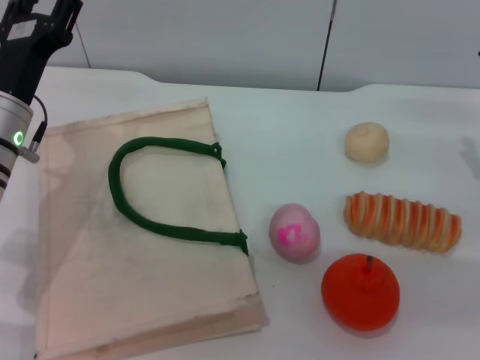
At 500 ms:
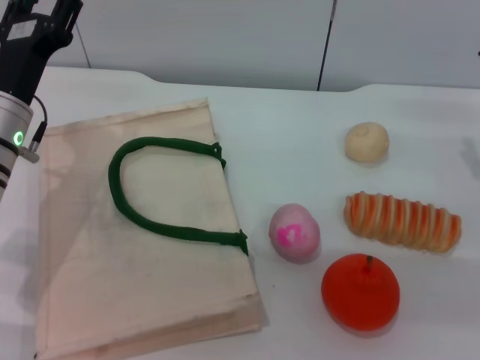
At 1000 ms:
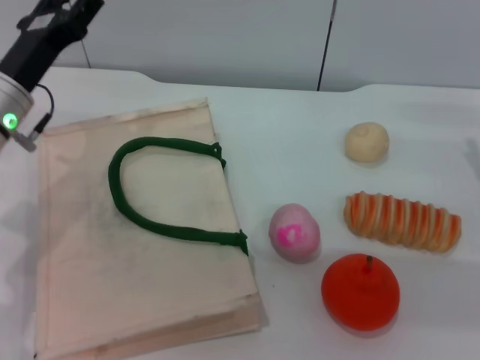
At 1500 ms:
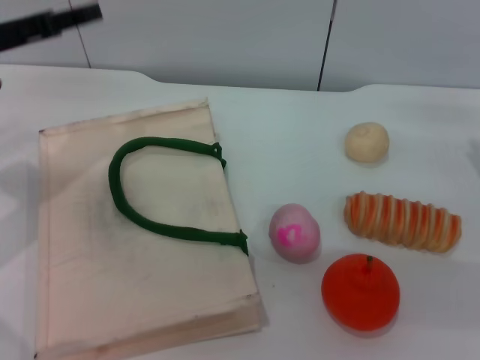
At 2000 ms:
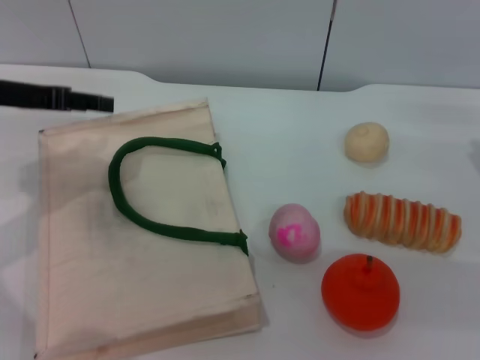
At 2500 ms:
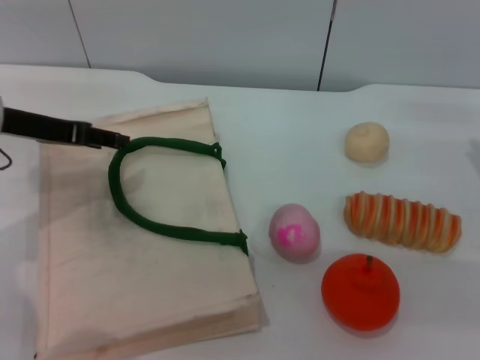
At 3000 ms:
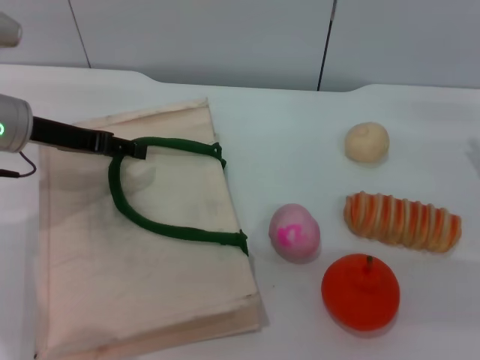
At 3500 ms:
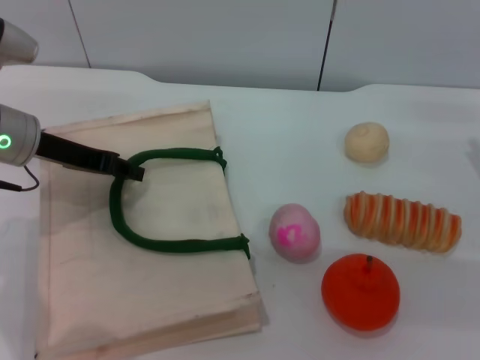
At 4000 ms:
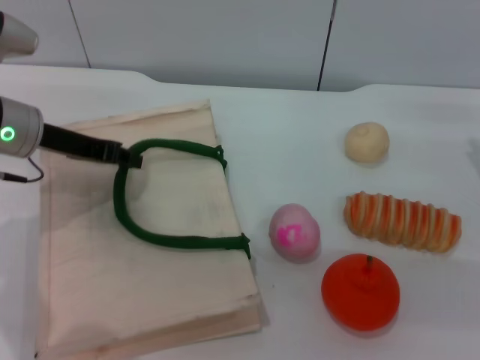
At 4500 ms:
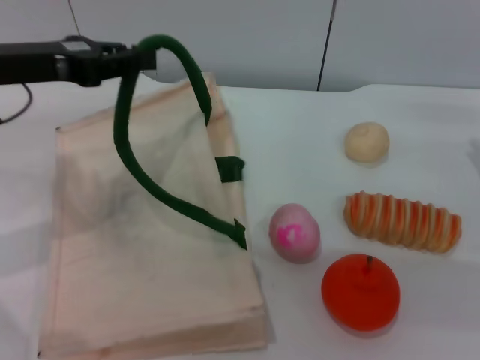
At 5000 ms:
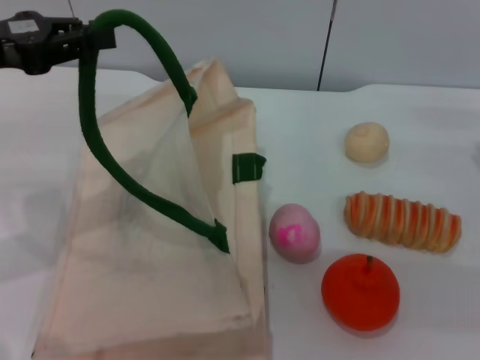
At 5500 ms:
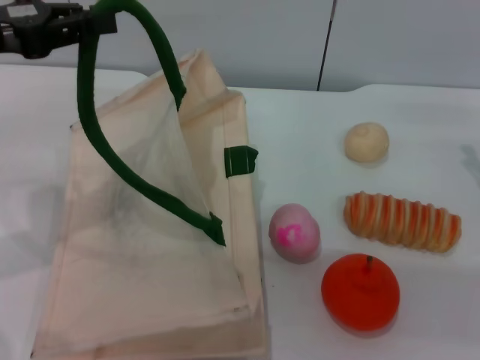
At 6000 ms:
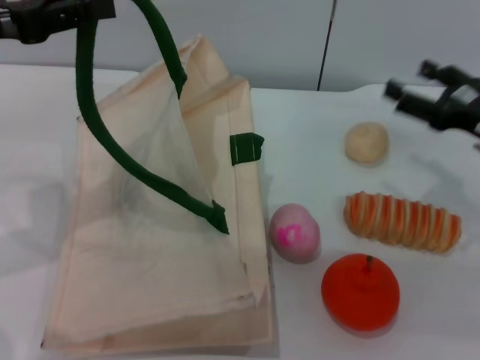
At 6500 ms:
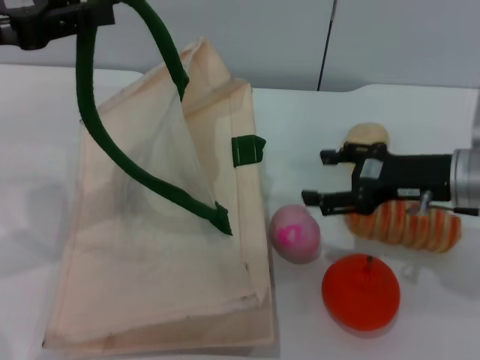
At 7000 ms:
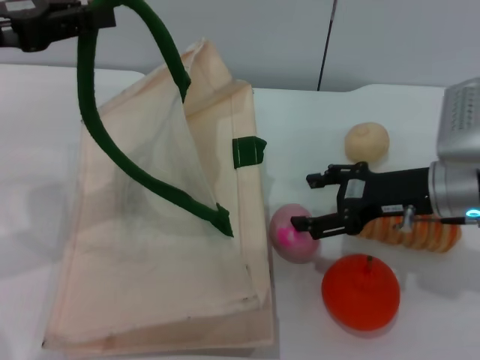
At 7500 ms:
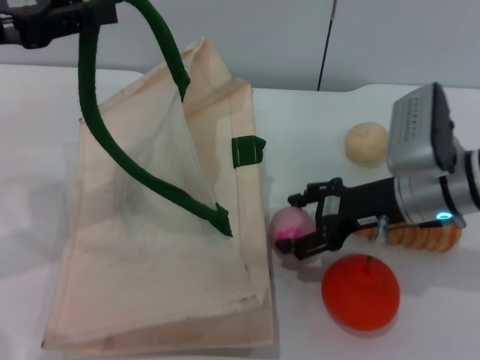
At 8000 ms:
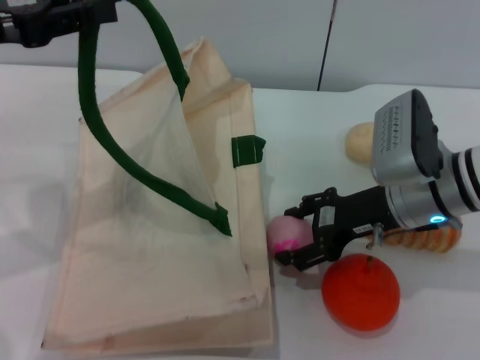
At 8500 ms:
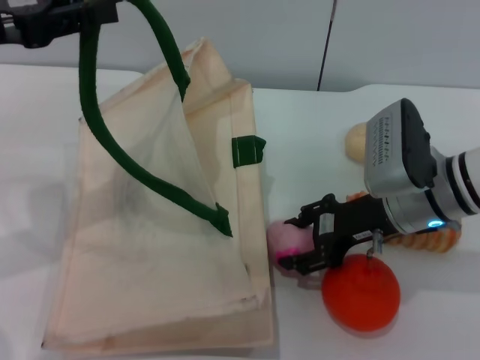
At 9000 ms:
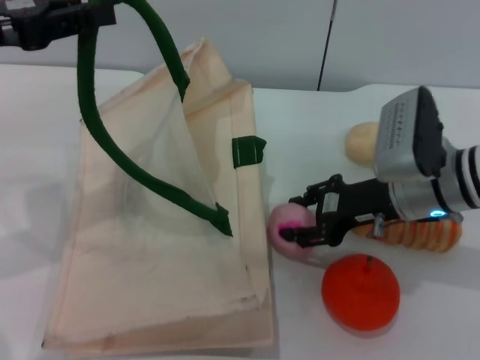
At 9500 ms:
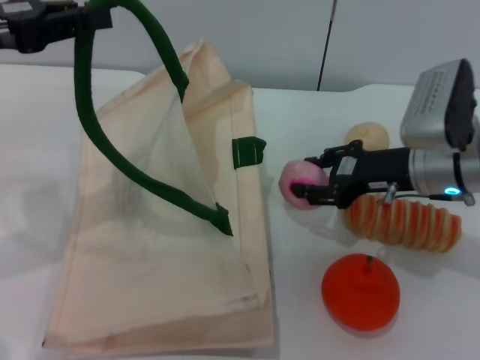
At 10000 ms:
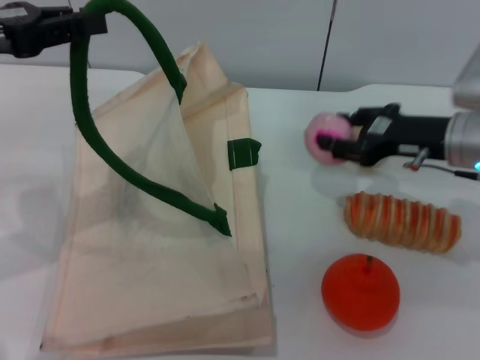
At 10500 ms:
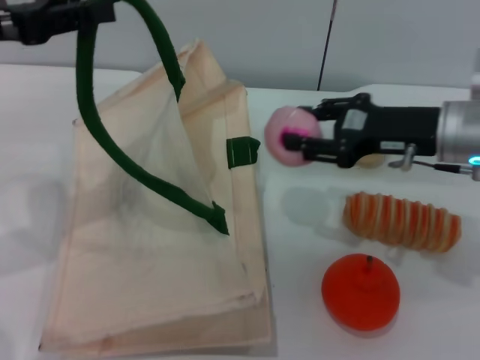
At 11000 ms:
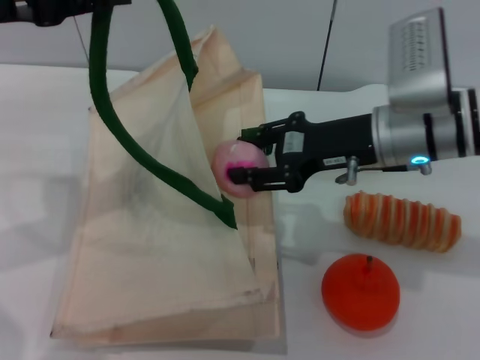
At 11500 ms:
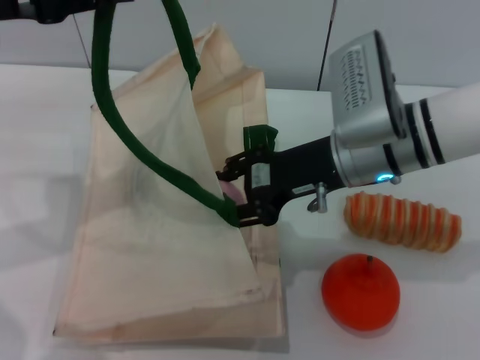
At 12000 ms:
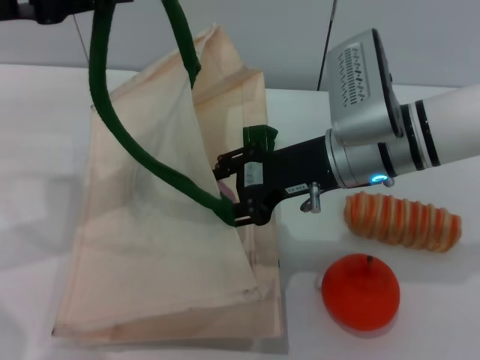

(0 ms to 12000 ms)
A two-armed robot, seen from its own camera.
Task of the whole recording: pick up the peach from the table and place it in the white handbag.
Step, 0 ms - 5000 ms: Lift the woven bag with the left gripper to open it.
Step, 5500 ms - 9000 ms: Pick up the peach with the right gripper.
0 ms - 2000 ms: The left gripper goes roughly 10 cm upward and to the left.
2000 ms - 4000 ms: The left gripper moves roughly 5 cm, and closes its fingers.
4000 ms - 6000 ms: The left gripper goes roughly 10 cm upward.
6000 ms - 8000 ms: The right gripper travels to the left by about 10 cm.
8000 ms - 10000 ms: The right gripper is displaced to the right by approximately 5 cm, and closes its fingers.
10000 ms - 12000 ms: The right gripper shifts some 10 cm to the left.

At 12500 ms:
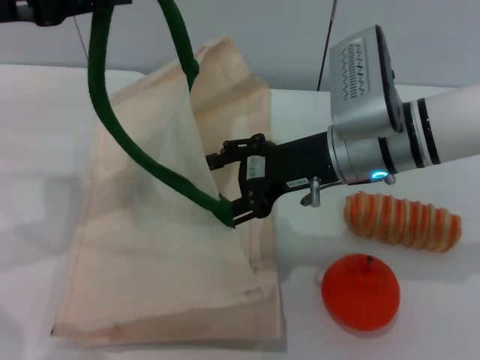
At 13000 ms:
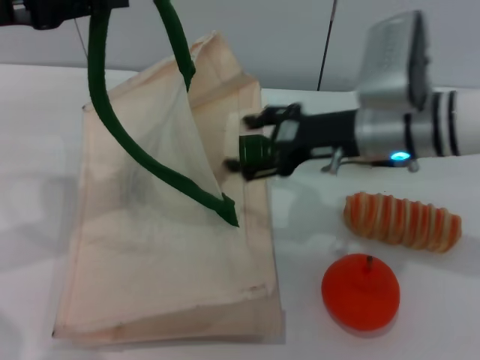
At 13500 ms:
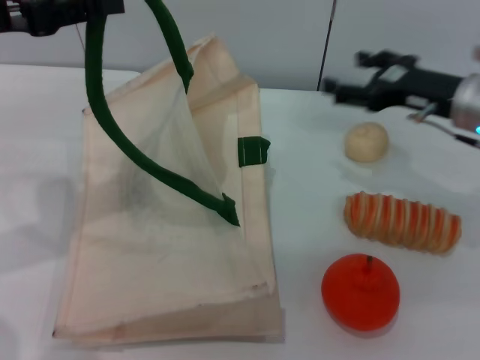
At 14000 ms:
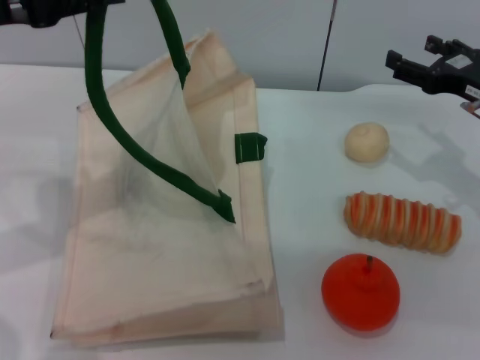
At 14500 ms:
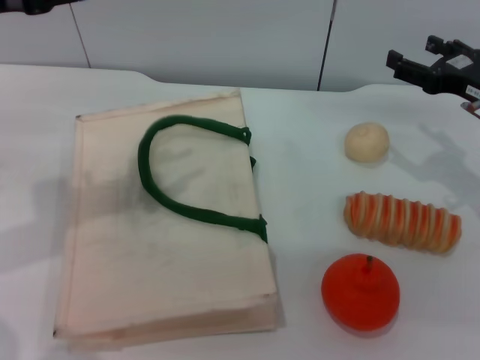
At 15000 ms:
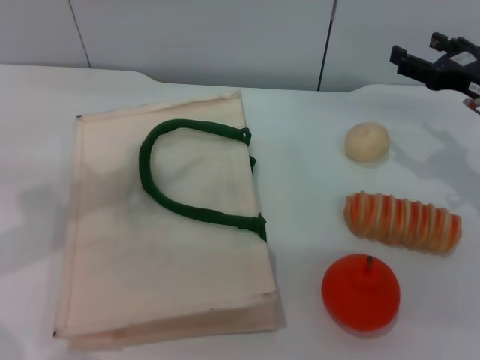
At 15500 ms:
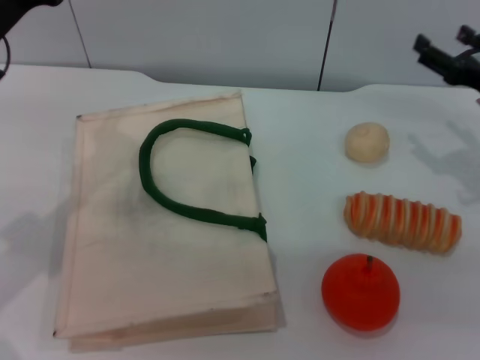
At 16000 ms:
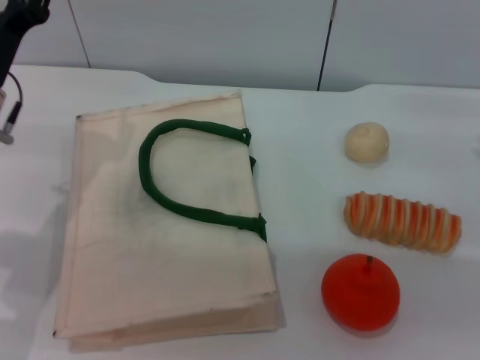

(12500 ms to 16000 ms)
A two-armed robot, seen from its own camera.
Task of the whole recording: pick up the peach from the table and place it in the white handbag.
12500 ms - 14500 ms: The left gripper opens up, while the right gripper shifts about 15 cm to the right.
14500 ms - 16000 ms: The right gripper changes place by about 5 cm. Meanwhile the left gripper moves downward, roughly 15 cm, and opens up.
